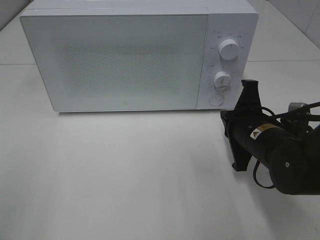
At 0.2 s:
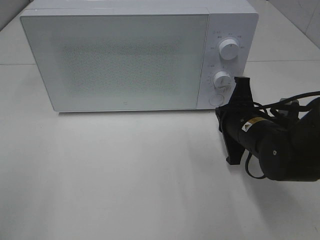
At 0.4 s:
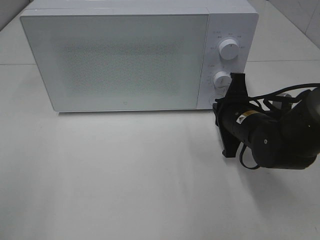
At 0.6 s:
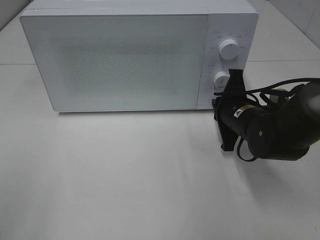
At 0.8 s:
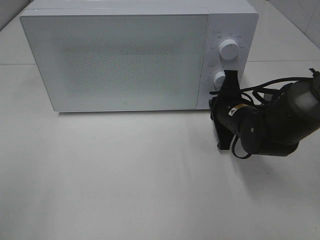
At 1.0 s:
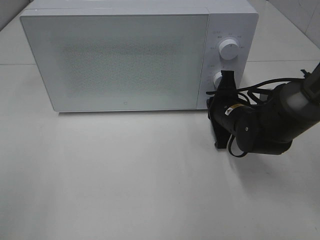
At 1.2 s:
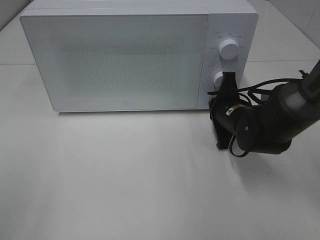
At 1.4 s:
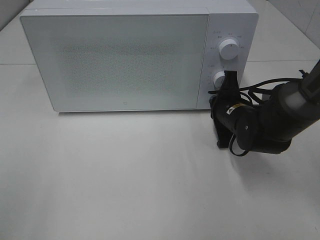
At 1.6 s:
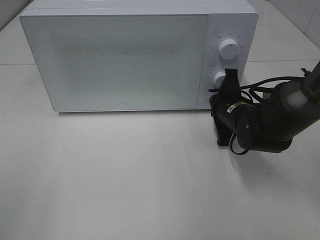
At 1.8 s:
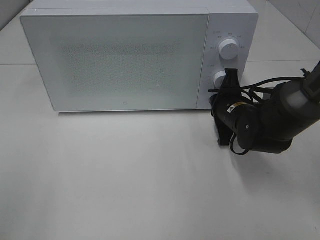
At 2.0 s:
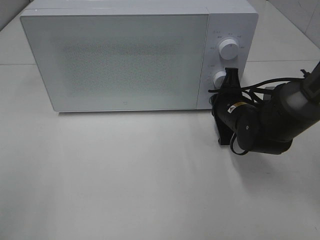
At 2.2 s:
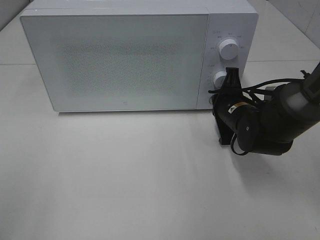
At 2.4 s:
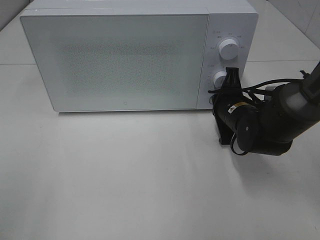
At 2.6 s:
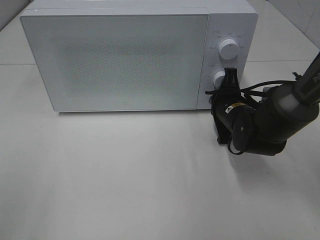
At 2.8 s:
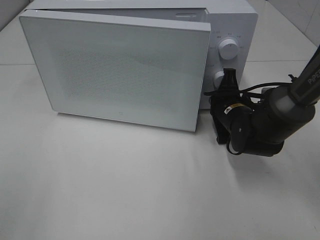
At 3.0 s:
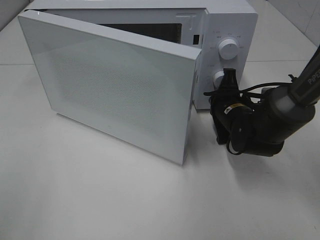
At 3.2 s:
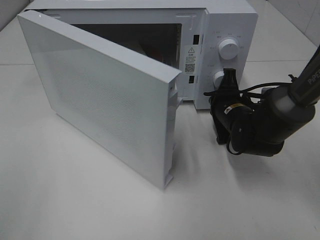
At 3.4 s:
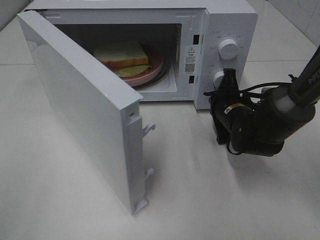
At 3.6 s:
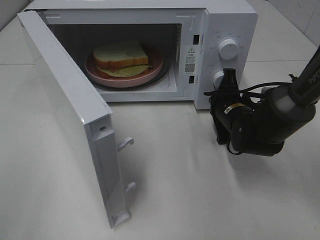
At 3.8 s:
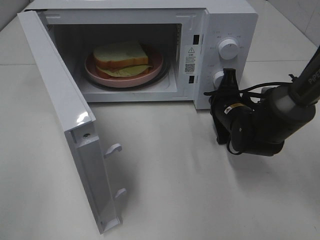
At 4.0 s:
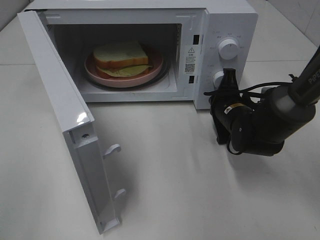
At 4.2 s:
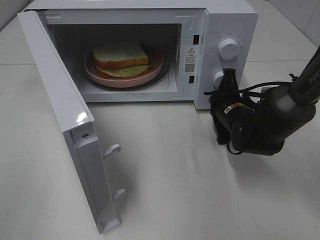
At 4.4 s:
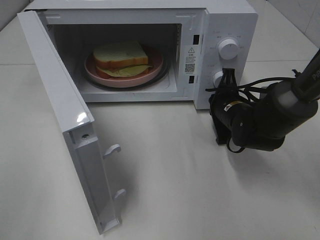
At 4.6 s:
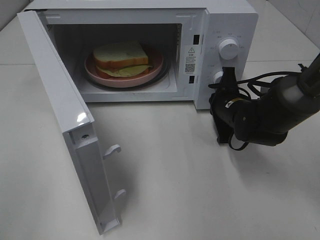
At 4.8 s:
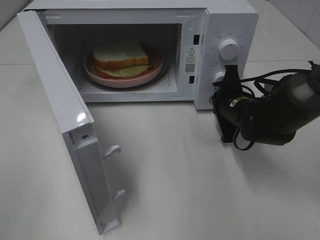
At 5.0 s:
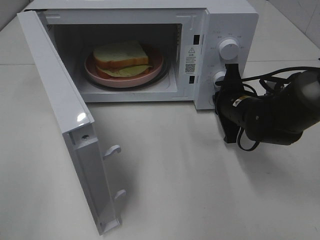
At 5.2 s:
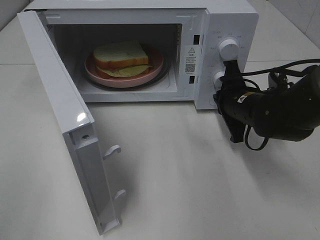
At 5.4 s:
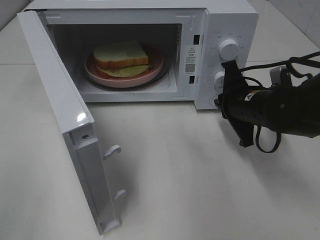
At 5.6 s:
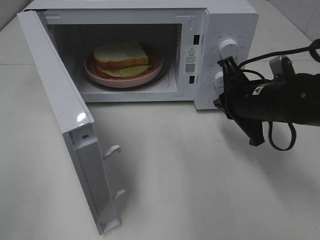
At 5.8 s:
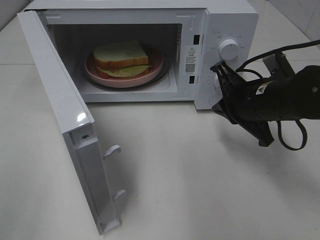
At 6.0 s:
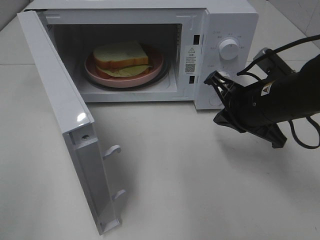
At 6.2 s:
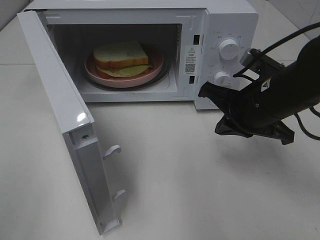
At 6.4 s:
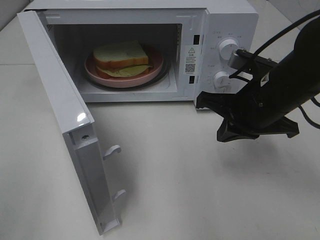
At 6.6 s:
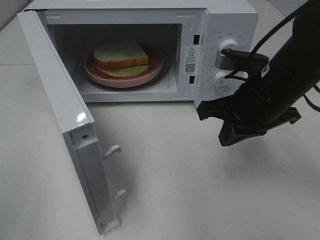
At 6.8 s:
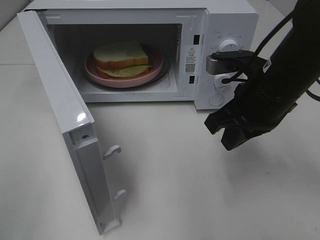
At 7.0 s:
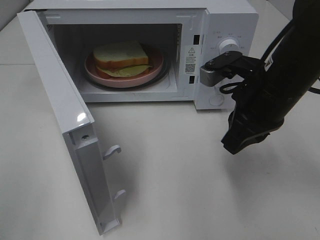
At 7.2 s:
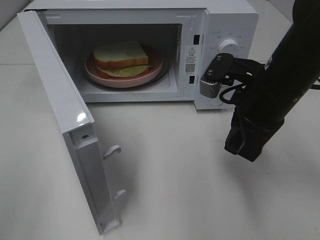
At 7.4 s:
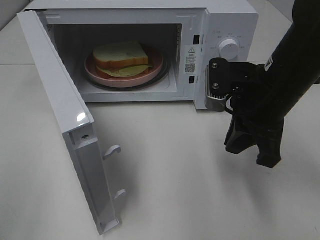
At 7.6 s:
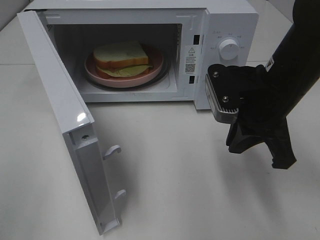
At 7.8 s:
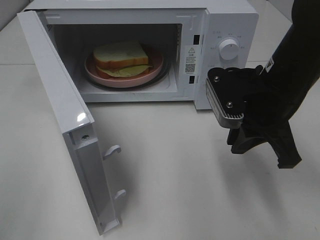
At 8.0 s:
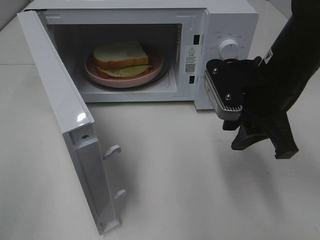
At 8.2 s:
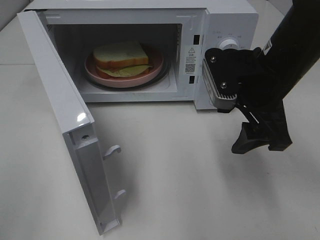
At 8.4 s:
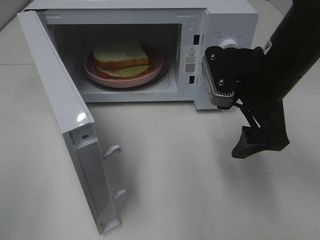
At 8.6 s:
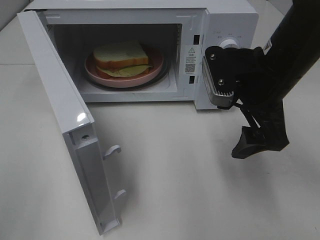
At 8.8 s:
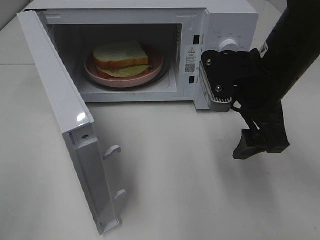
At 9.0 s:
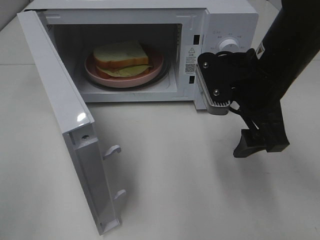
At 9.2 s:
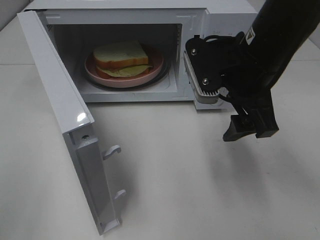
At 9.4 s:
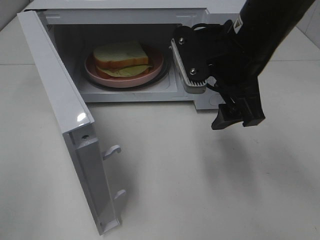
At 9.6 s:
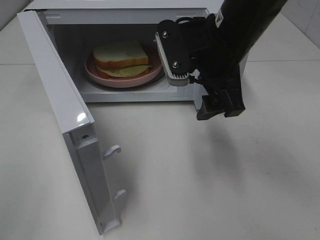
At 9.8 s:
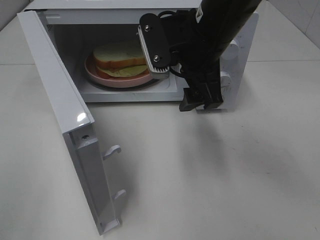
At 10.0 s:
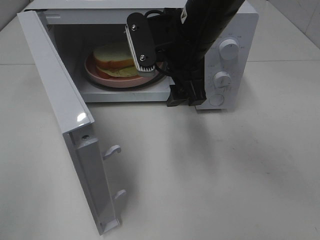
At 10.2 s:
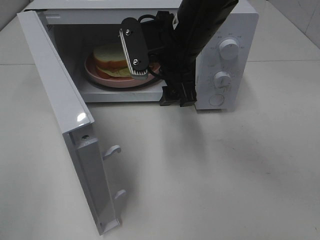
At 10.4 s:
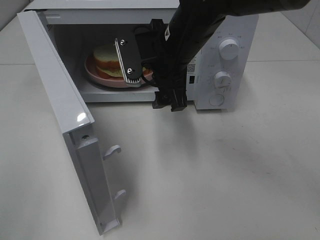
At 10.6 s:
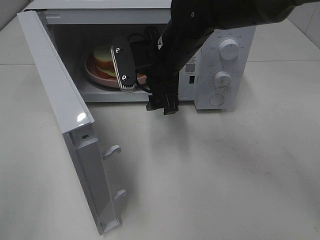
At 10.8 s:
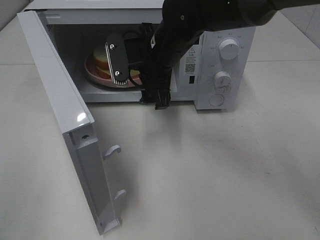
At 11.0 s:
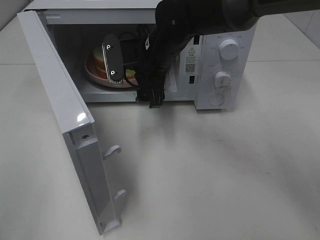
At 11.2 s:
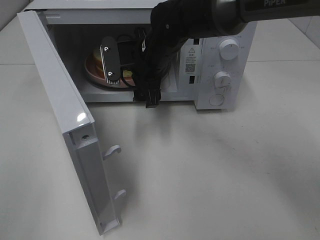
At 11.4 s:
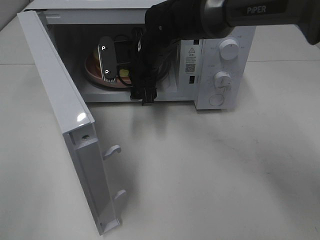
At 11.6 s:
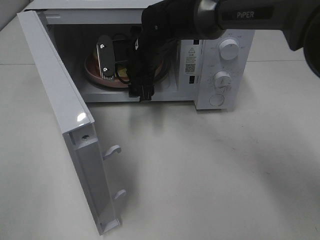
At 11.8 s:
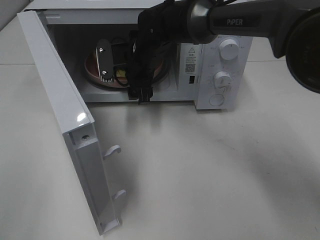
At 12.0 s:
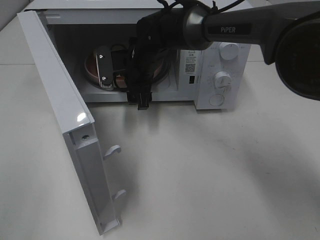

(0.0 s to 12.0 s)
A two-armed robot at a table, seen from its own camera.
Task of the whole recording: Heat Sandwich.
Step, 0.0 s - 5.0 s: Right hand: press the switch.
0.0 s - 1.6 s: The right gripper moves forward, about 10 cm.
1.6 s - 3.0 s: The grippers move only a little.
4.4 s - 6.0 s: The right gripper travels upward and backward by roughly 15 cm.
7.6 s - 9.0 s: The right gripper opens up.
9.0 s - 10.4 s: The right gripper is displaced to the left and forward by about 15 cm.
10.4 s - 12.0 s: The right gripper moves forward, downward and to the left, about 15 cm.

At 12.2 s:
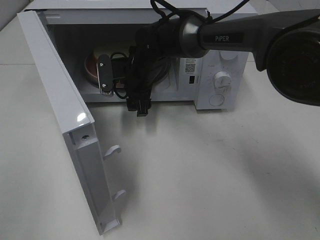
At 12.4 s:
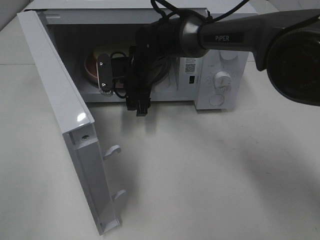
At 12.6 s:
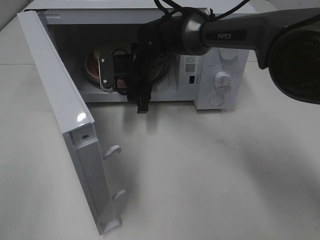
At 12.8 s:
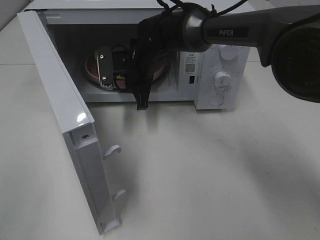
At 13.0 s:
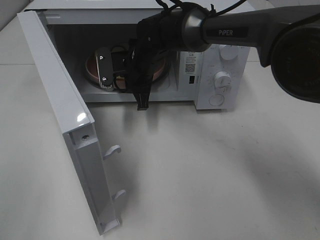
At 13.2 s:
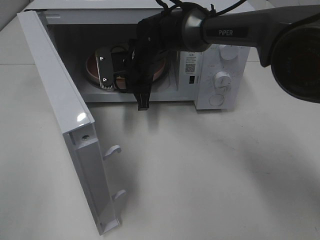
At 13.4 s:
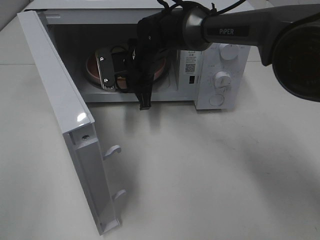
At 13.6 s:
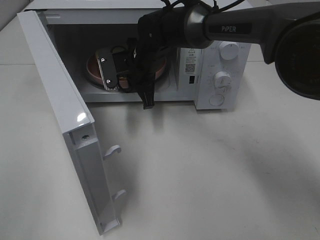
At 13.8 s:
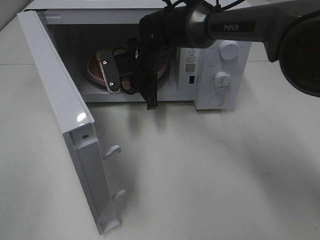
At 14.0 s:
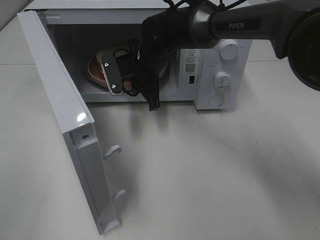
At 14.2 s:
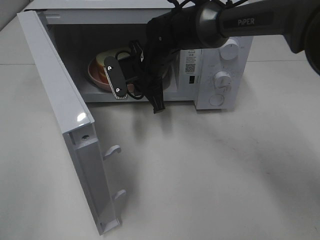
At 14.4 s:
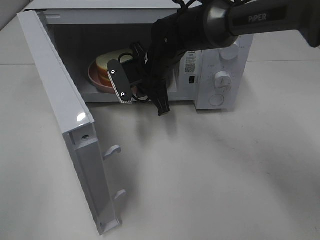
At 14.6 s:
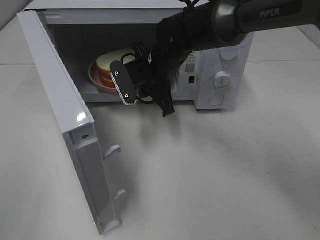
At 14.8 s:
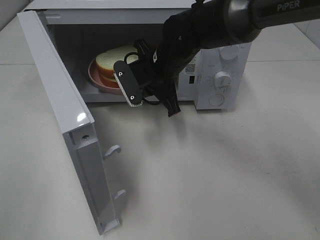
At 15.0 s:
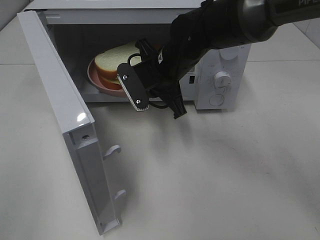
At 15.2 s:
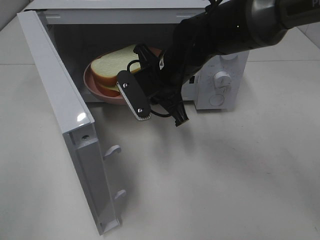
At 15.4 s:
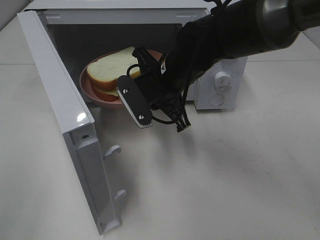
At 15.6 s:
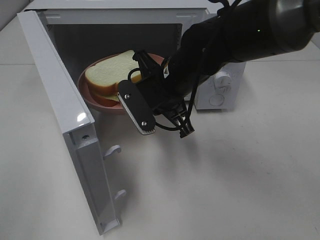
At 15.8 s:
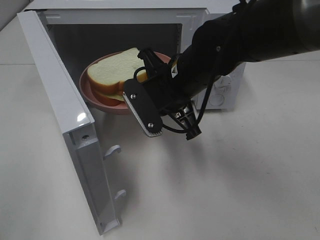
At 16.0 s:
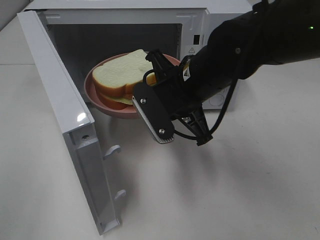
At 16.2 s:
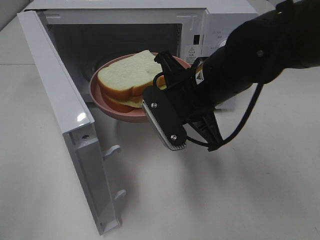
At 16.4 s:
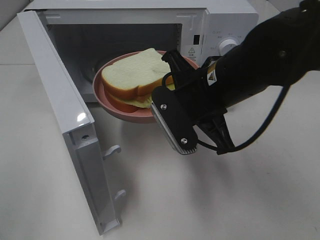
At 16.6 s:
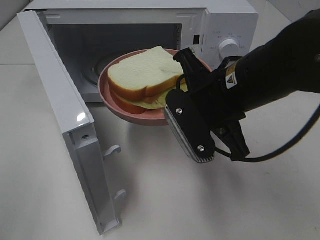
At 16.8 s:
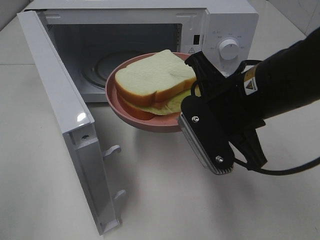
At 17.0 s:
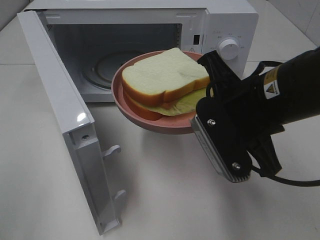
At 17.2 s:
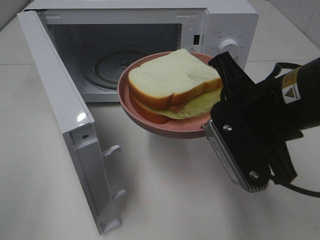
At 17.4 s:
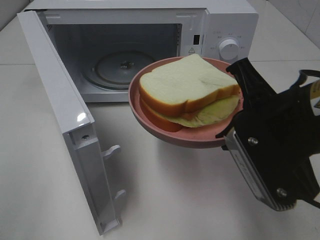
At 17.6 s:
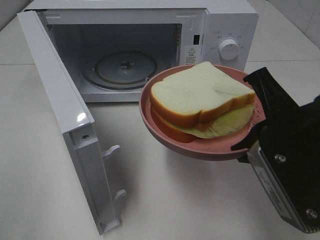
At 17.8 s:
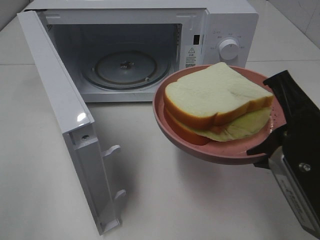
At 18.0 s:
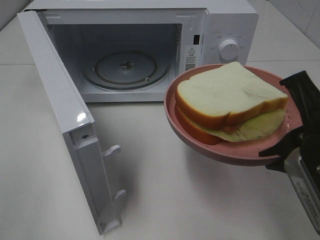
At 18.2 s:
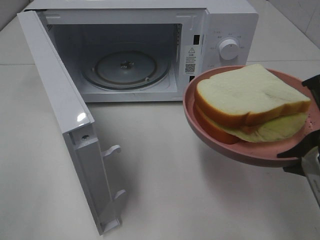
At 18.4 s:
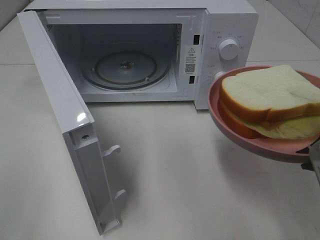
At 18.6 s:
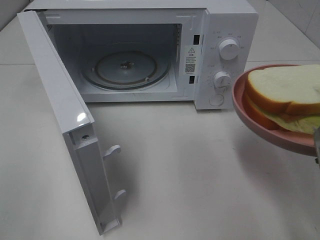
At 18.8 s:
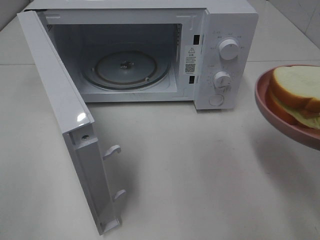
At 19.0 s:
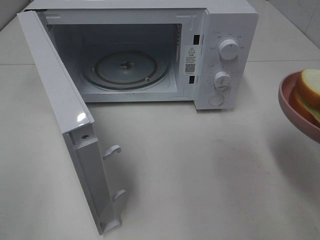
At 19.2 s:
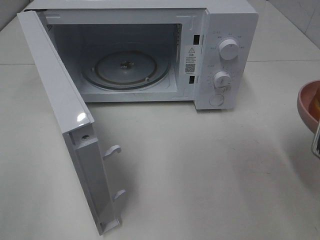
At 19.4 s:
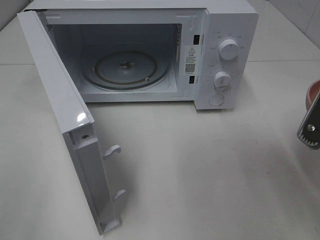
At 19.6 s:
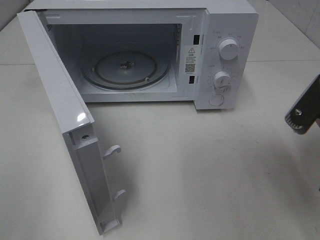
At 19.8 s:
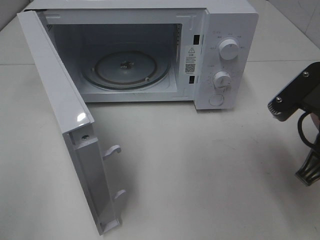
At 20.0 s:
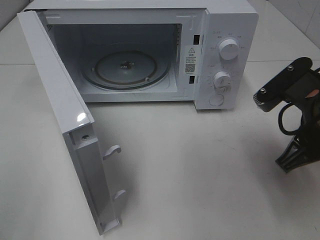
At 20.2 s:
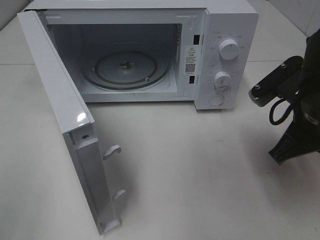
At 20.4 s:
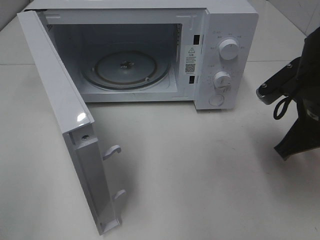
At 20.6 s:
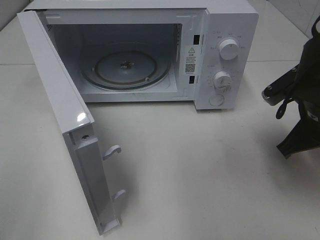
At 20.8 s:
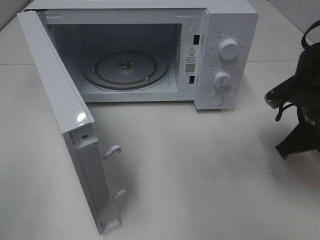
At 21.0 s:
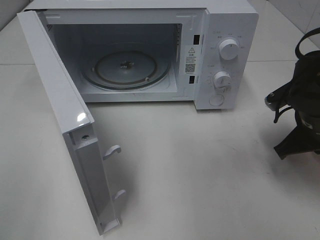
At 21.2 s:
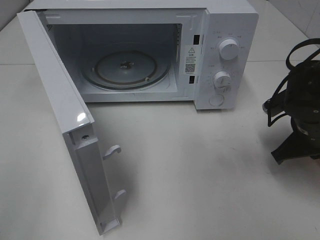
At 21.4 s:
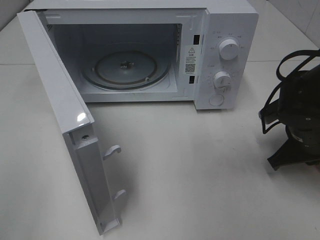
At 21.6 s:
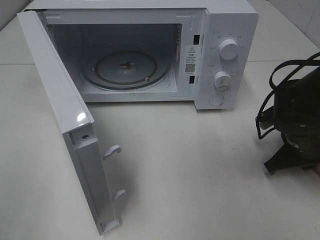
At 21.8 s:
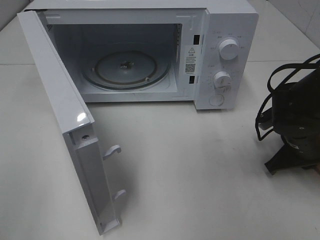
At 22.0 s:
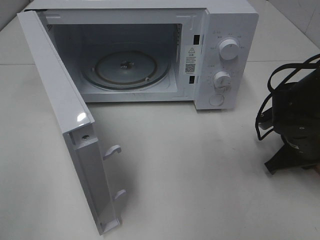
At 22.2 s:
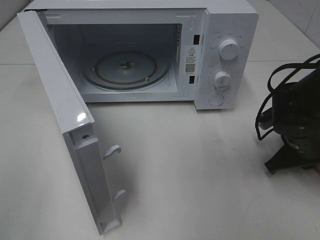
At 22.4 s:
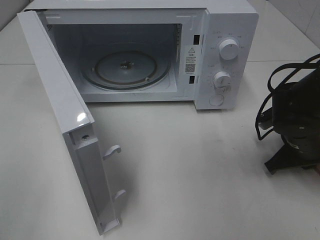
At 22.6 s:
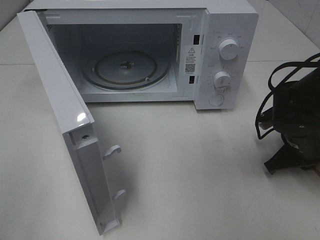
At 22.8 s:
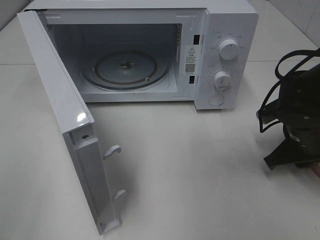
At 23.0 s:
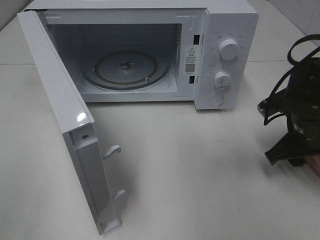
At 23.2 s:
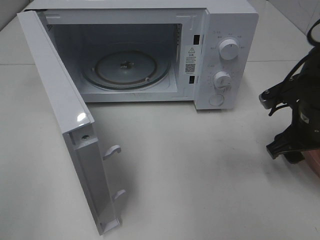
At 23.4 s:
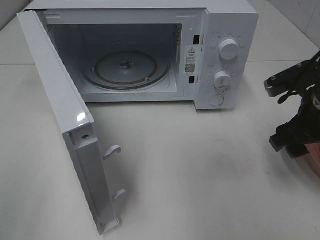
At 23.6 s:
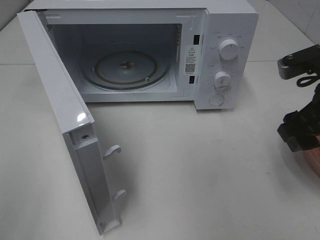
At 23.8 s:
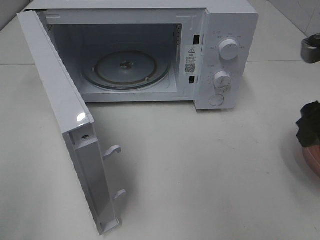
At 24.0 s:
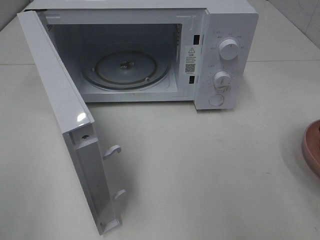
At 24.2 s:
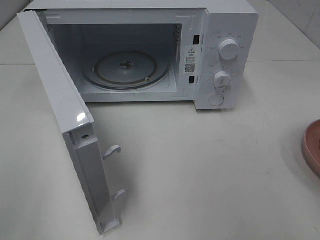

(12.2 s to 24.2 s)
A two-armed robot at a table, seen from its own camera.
Task of the whole recording: Heat Sandwich.
Step, 13.2 s - 23.4 s: Right hand: place the plate on the table.
12.2 s - 13.8 s: The right gripper closes up.
13.8 s - 15.2 s: The right gripper shifts approximately 10 cm backward.
15.2 s - 16.6 s: The right gripper is displaced backward and to the right by roughly 15 cm.
16.6 s - 18.2 s: The right gripper shifts about 15 cm backward and to the right.
18.2 s - 19.8 s: The right gripper moves forward, about 5 cm.
19.8 s - 21.2 s: The right gripper heads downward and forward, covering approximately 15 cm.
21.2 s - 22.6 s: There are only small adjustments of the grippers.
22.6 s - 24.2 s: The right gripper moves upward and backward, about 30 cm, and opens its fingers.
